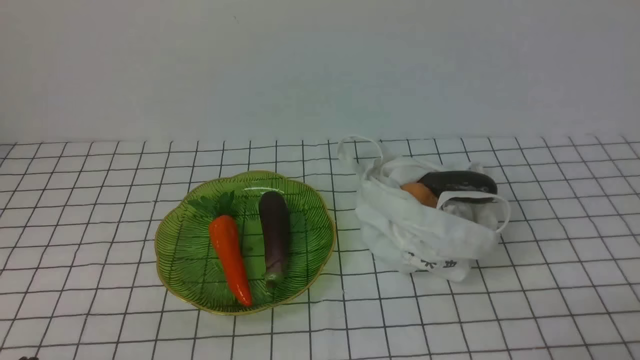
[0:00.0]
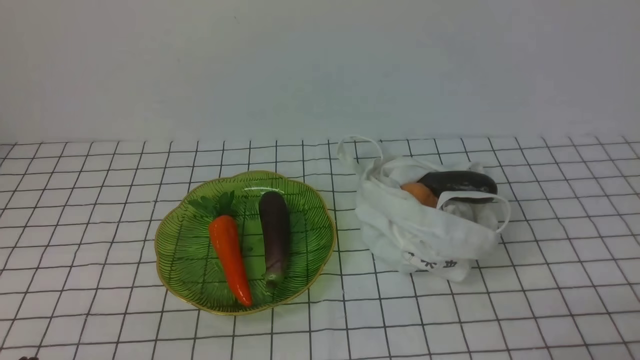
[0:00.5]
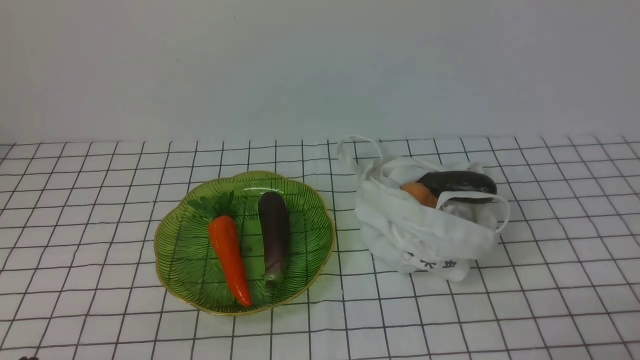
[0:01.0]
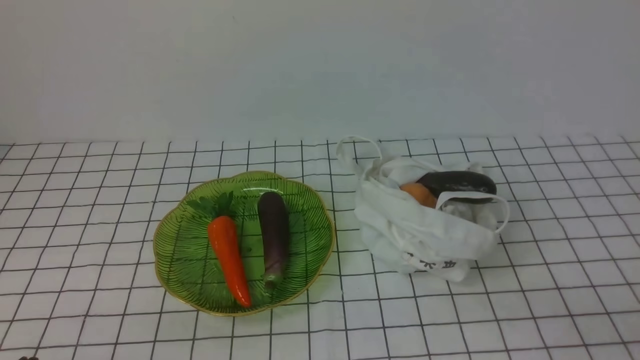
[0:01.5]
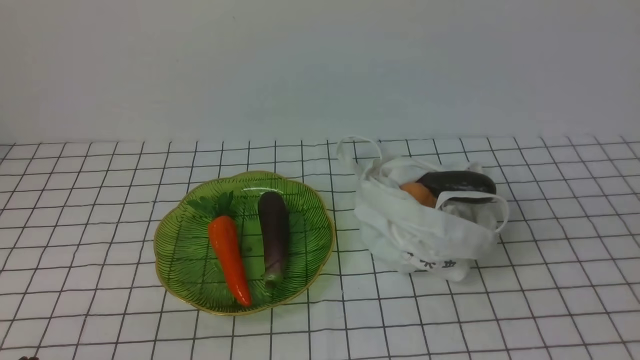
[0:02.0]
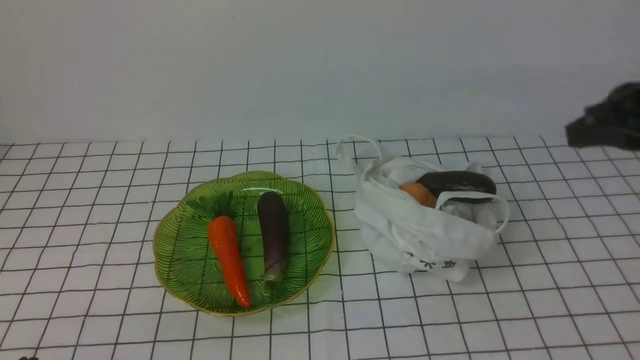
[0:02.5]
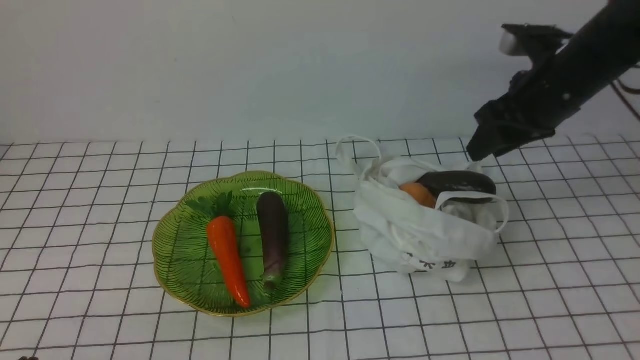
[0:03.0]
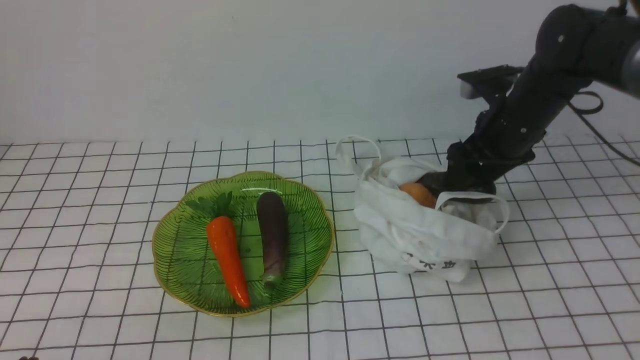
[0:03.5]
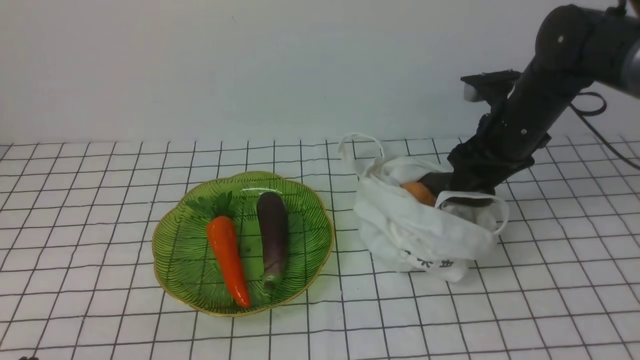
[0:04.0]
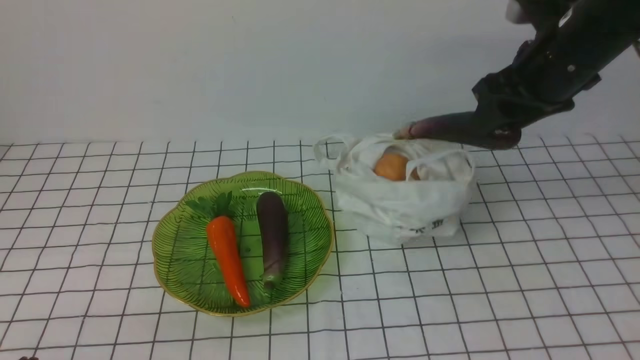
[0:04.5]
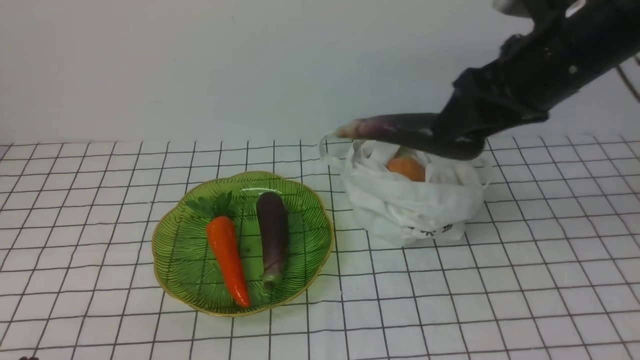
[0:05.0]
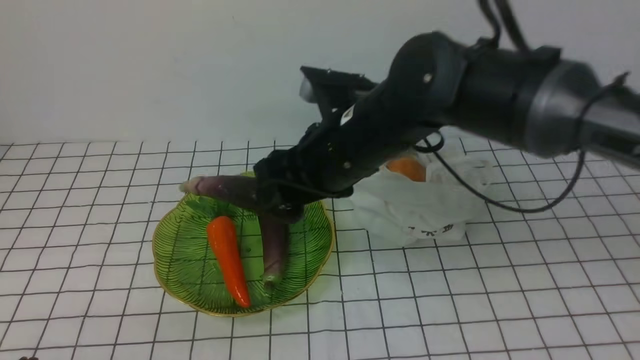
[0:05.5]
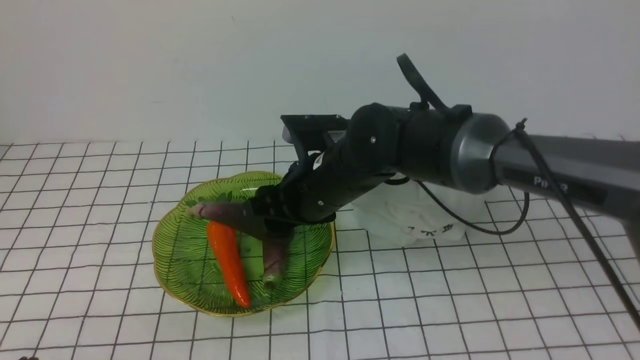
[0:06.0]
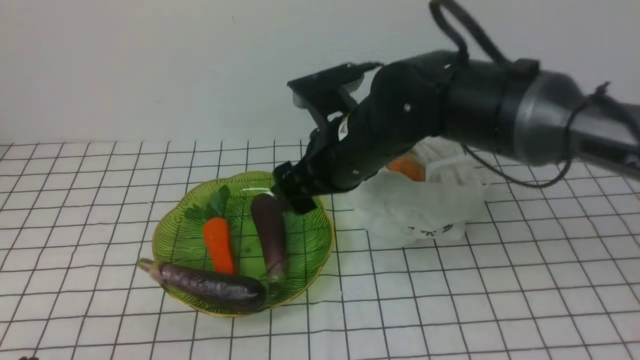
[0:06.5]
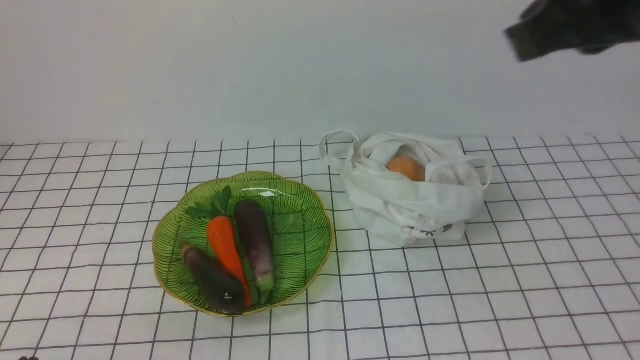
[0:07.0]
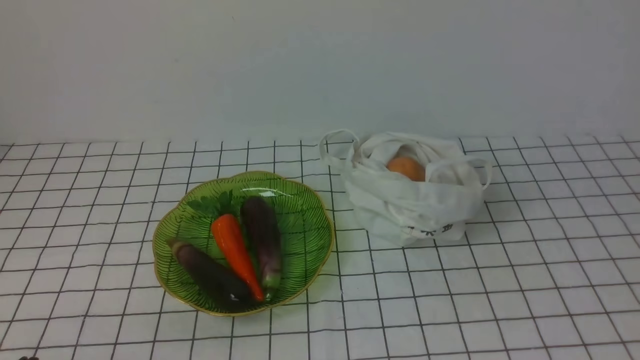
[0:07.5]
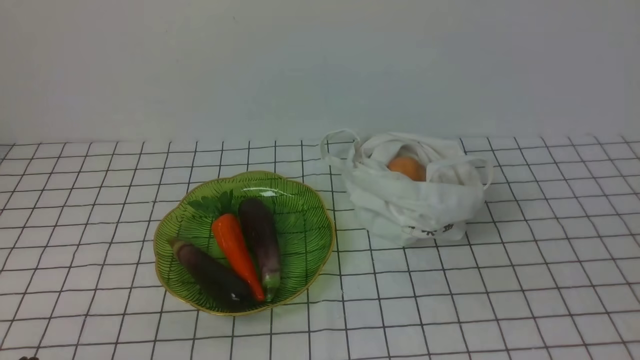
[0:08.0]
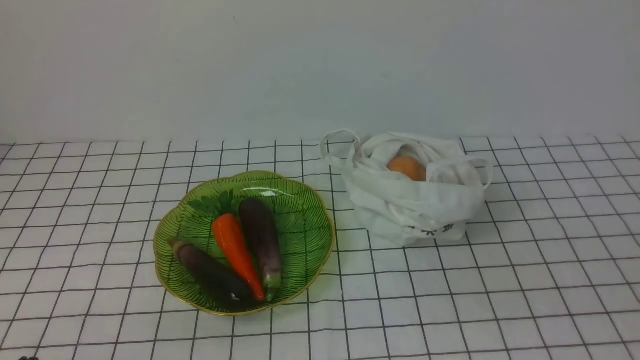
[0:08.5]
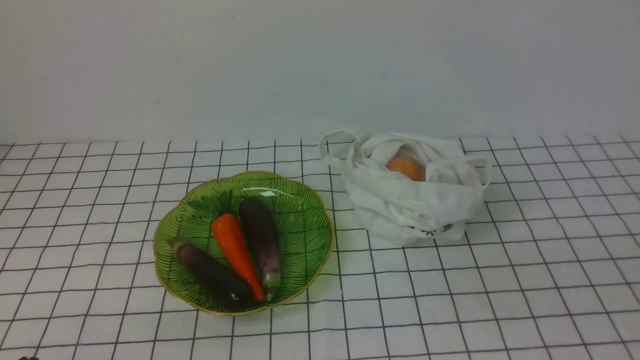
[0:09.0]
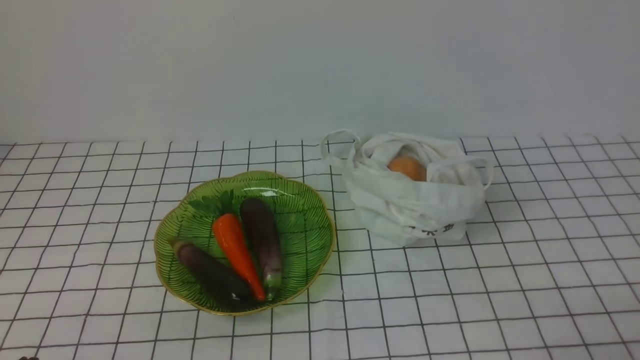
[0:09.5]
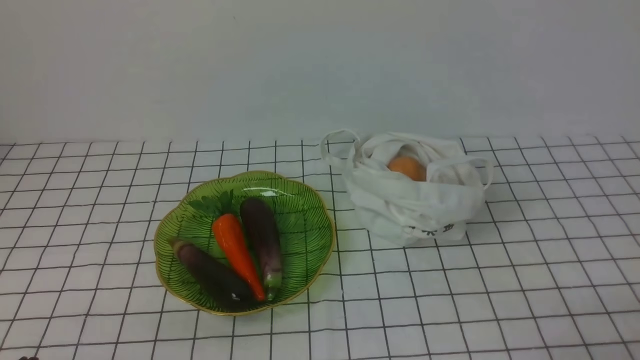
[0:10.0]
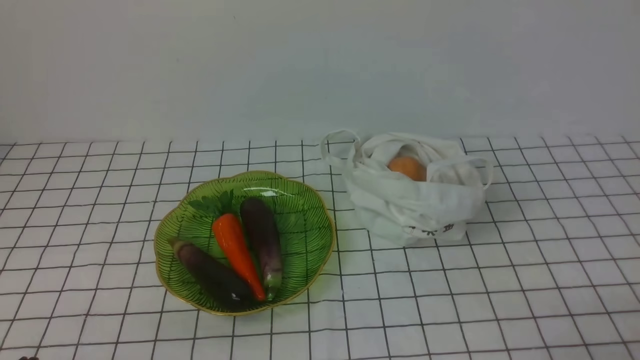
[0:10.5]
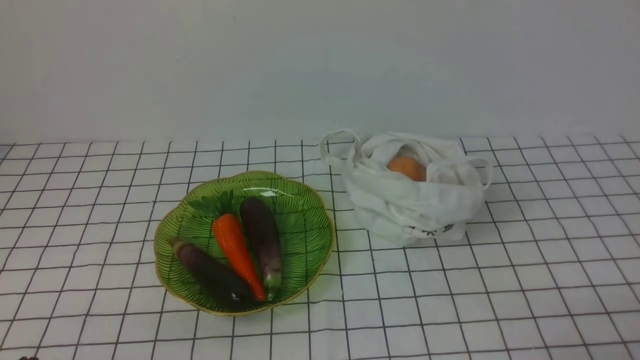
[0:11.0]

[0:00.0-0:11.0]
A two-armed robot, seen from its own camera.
Task of the whole recording: take vegetables from bag on white checkered tablecloth place on plate.
Step, 0:00.0 to 0:03.5: Grasp the eggplant with right gripper.
Step, 0:04.0 to 0:06.0: Place the eggplant on the plate with right gripper.
0:02.0 to 0:03.5: The right gripper shifts about 35 cm forward, and opens.
0:03.5 to 0:05.5: The right gripper is displaced to the left and backward by about 20 cm.
0:05.5 to 0:07.5: The right gripper goes about 40 cm backward, to the right and upward, and closes its fingers.

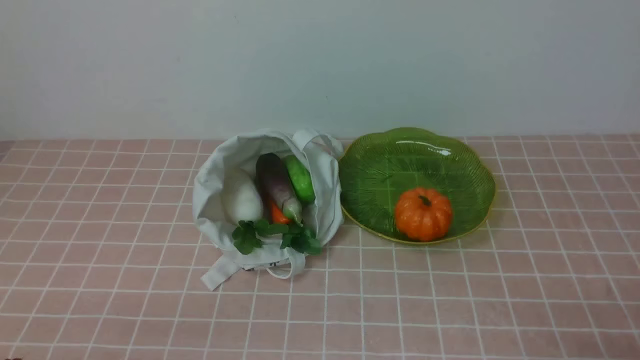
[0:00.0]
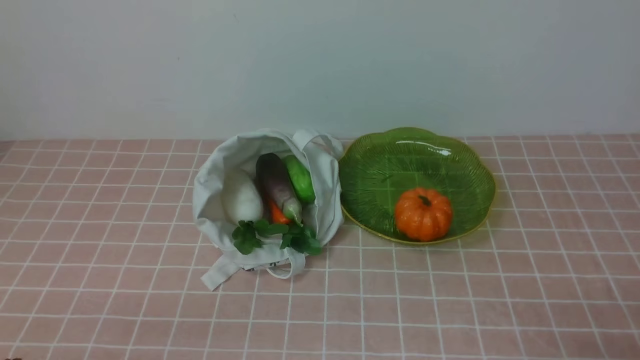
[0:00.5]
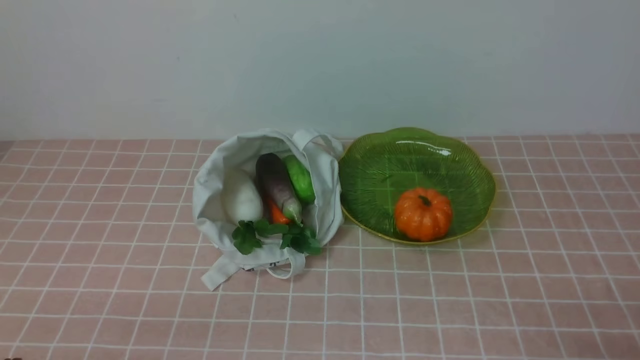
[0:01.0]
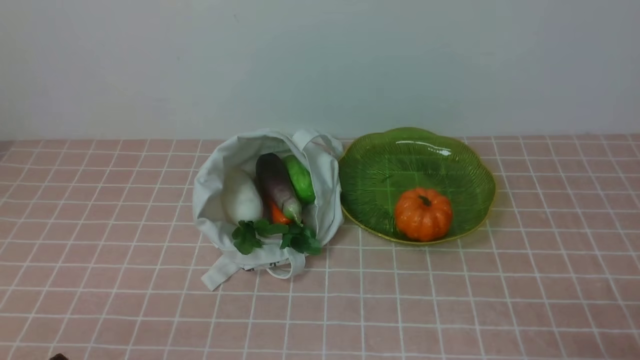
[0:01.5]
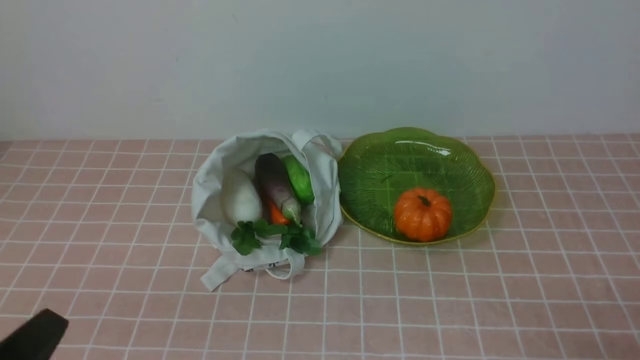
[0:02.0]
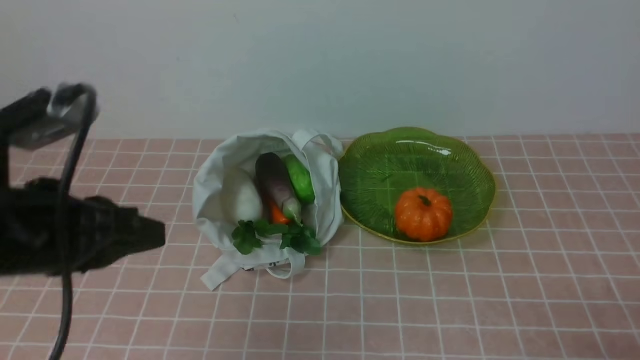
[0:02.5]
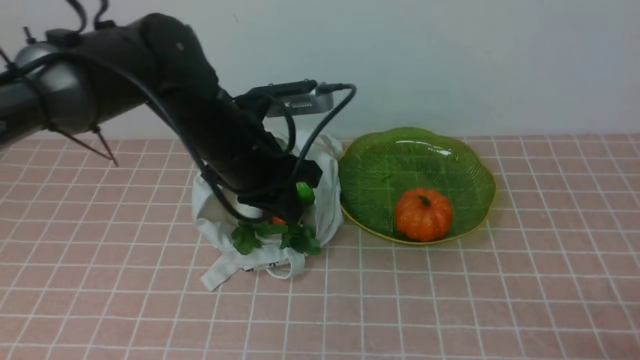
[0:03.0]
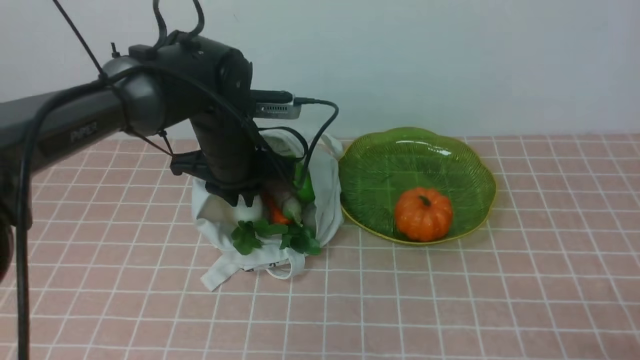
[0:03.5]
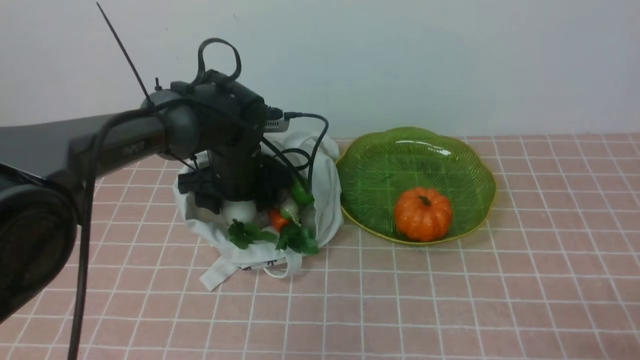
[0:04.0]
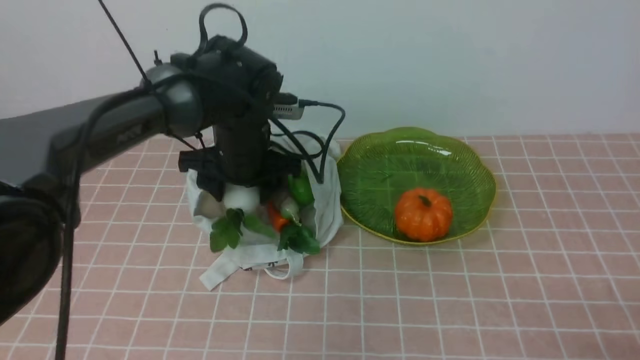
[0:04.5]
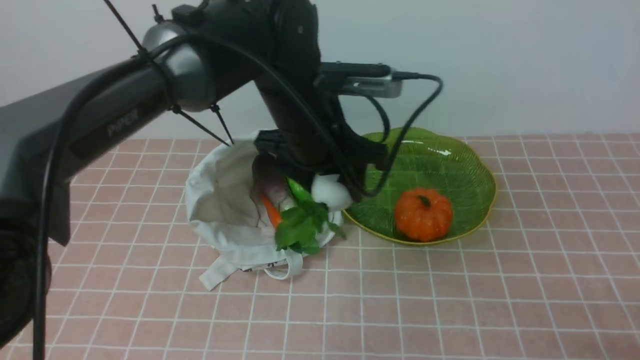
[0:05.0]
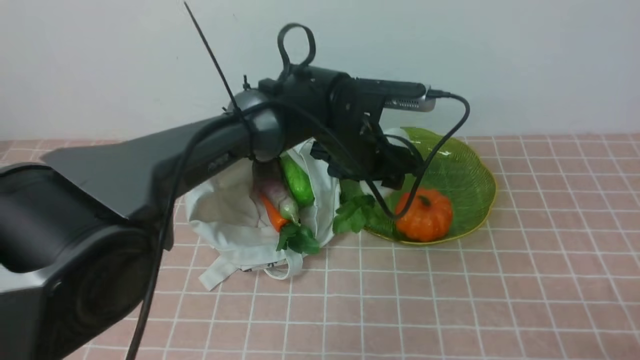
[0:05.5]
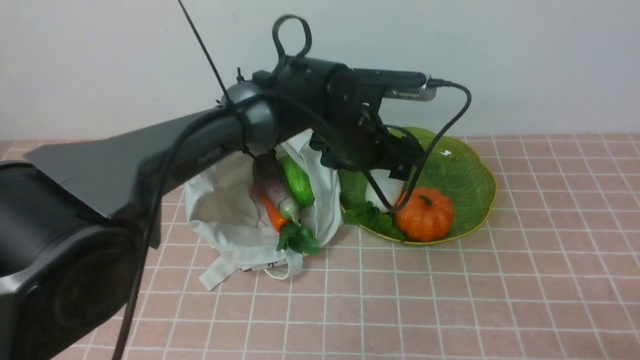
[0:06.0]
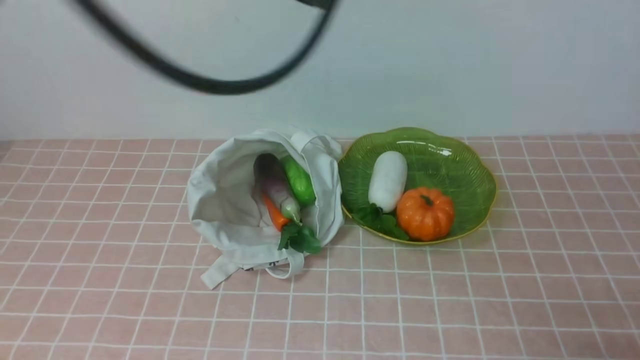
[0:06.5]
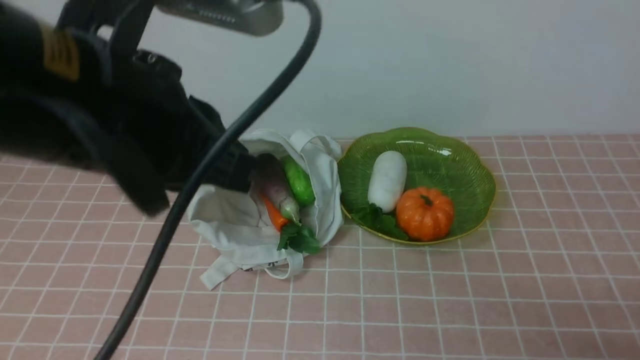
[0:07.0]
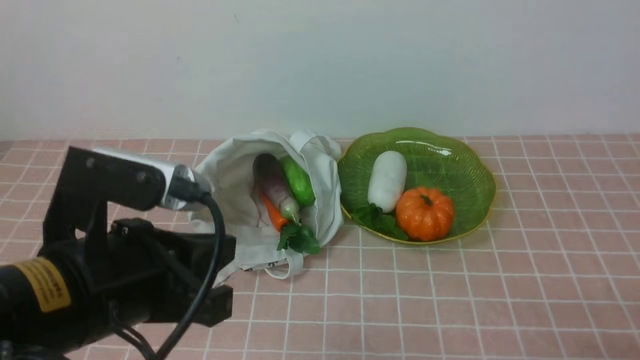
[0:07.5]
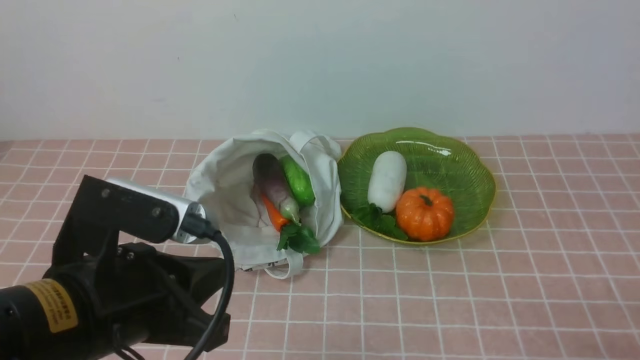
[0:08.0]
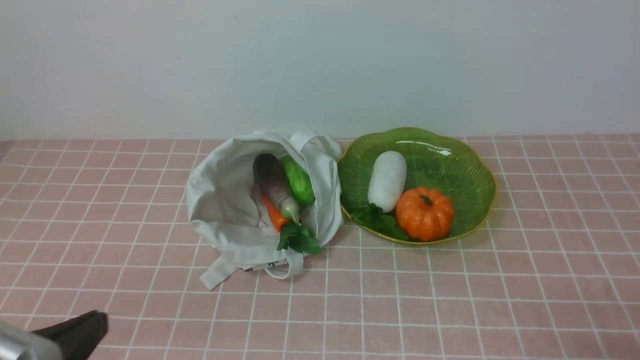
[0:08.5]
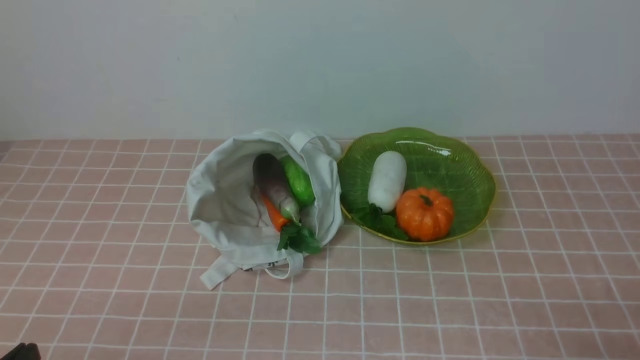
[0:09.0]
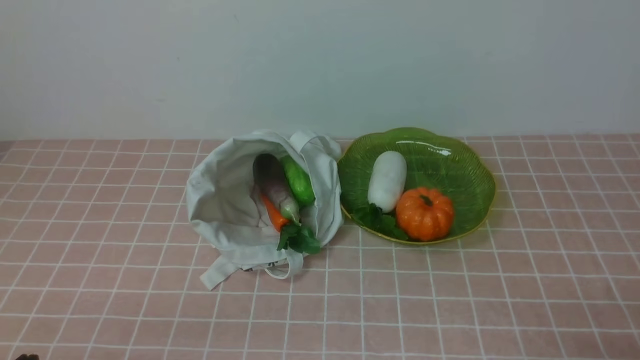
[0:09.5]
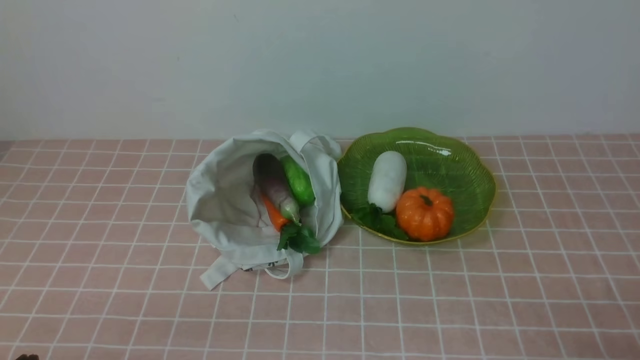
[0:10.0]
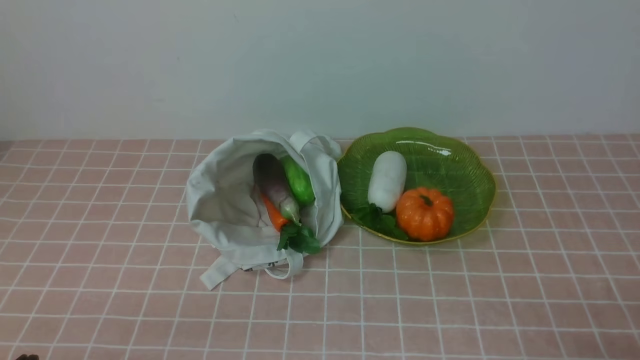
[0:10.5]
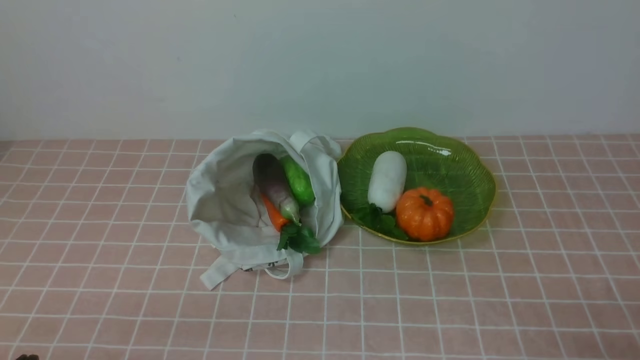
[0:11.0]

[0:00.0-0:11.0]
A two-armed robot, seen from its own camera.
Task of the whole recording: take vegetables from bag on pink coffee tablecloth place on plate.
Step, 0:00.0 to 0:04.0: Grasp the radish with left gripper.
Step, 0:04.5 to 0:06.0: Place the radish on the plate with left gripper.
0:00.0 to 0:02.0: The left gripper shifts some 5 cm upward.
0:02.0 to 0:03.5: The left gripper heads forward, covering roughly 35 cm, and opens.
0:03.5 to 0:05.5: The left gripper moves to the right, approximately 15 cm, and opens.
0:05.5 to 0:07.5: The left gripper travels backward and to the left by approximately 30 cm, and closes.
0:07.5 to 0:09.0: The left gripper moves downward, to the left and backward, roughly 20 cm.
0:09.0 to 0:11.0: The two grippers keep their place.
